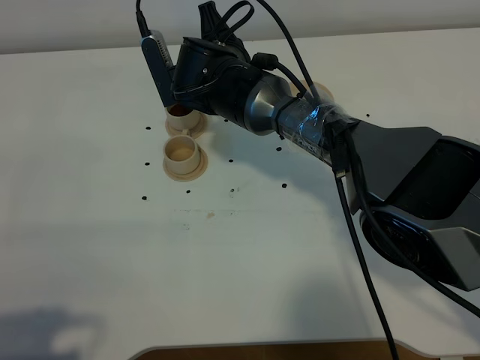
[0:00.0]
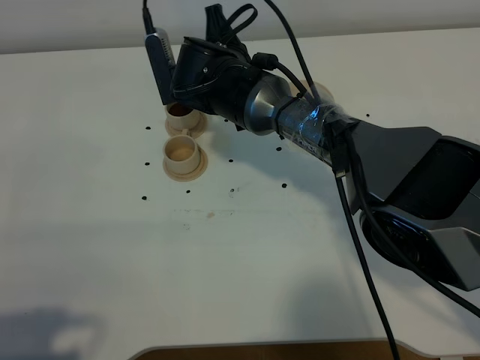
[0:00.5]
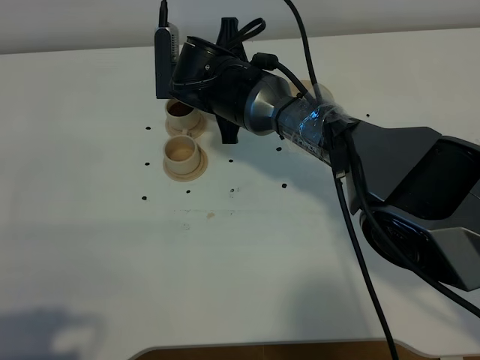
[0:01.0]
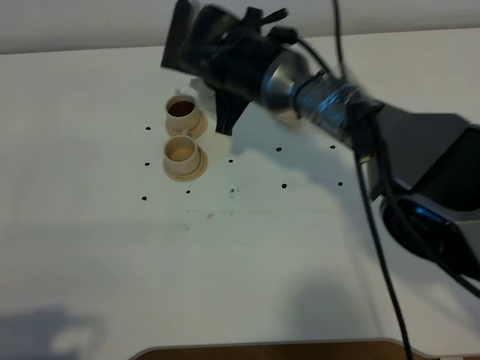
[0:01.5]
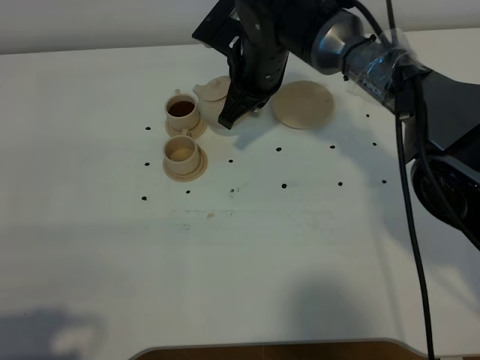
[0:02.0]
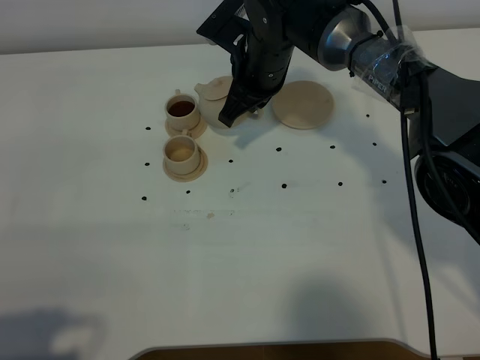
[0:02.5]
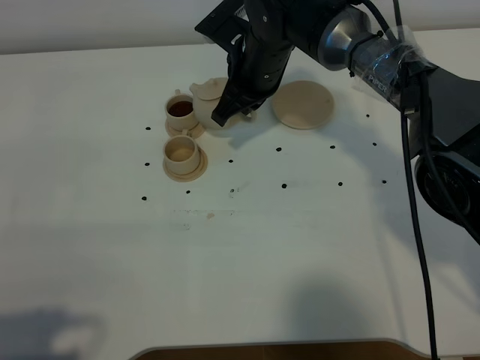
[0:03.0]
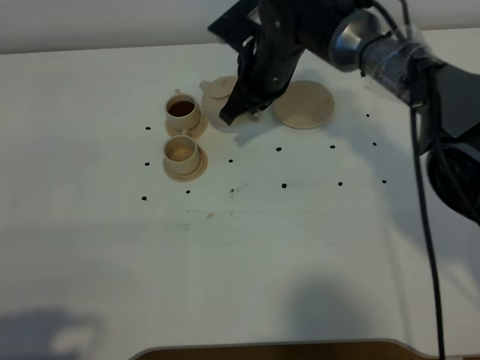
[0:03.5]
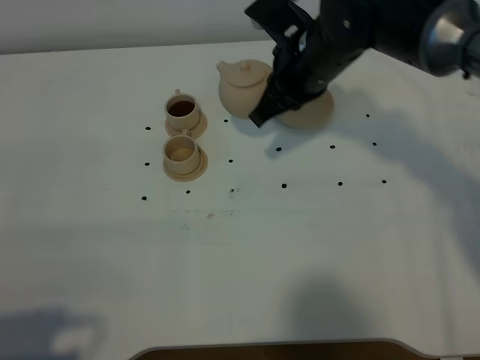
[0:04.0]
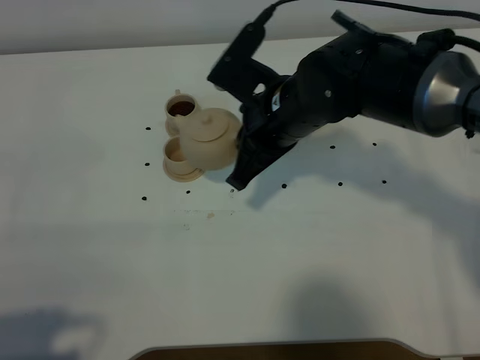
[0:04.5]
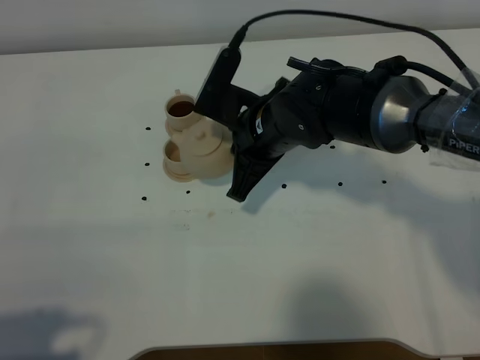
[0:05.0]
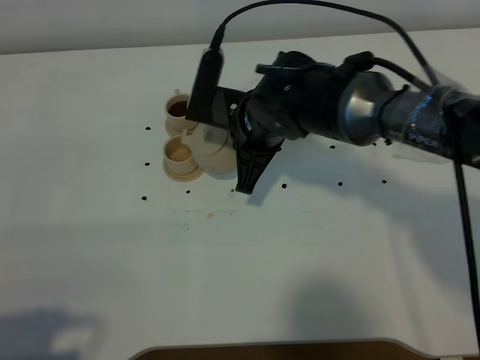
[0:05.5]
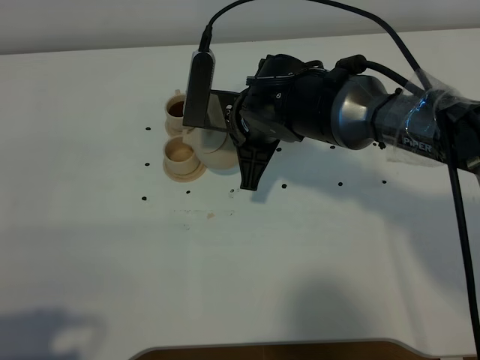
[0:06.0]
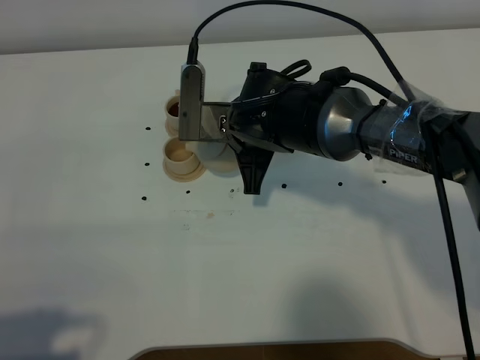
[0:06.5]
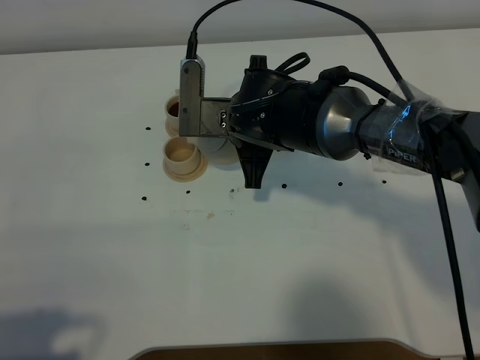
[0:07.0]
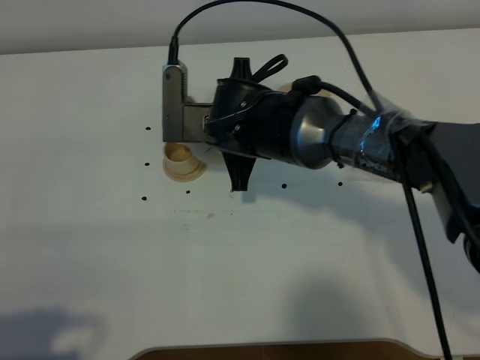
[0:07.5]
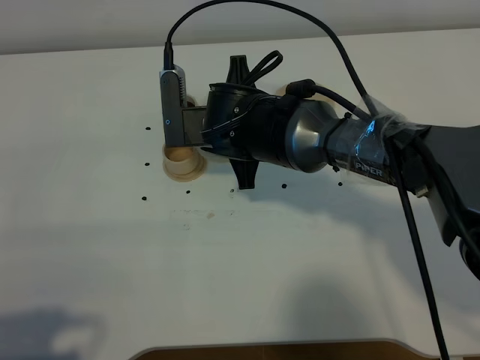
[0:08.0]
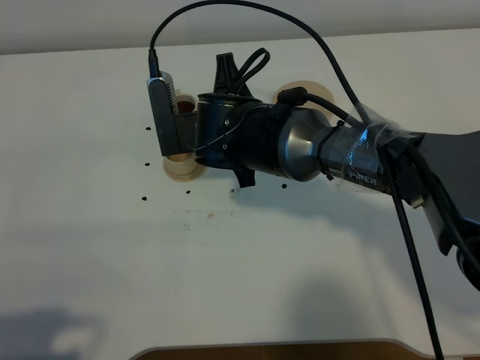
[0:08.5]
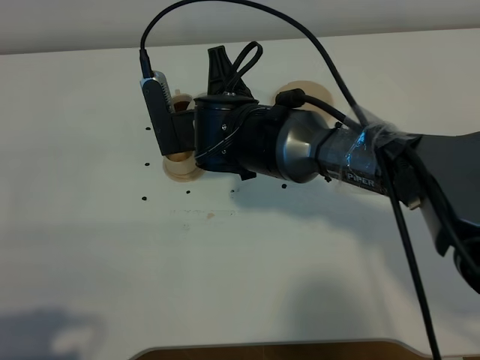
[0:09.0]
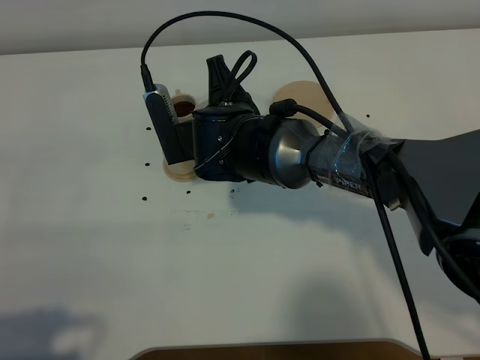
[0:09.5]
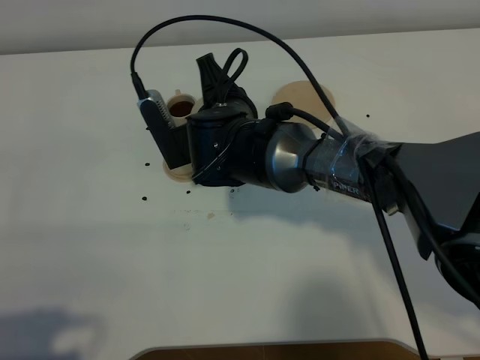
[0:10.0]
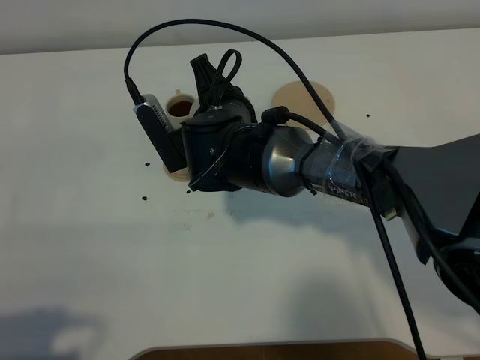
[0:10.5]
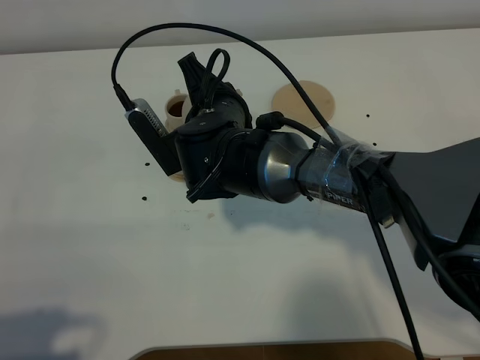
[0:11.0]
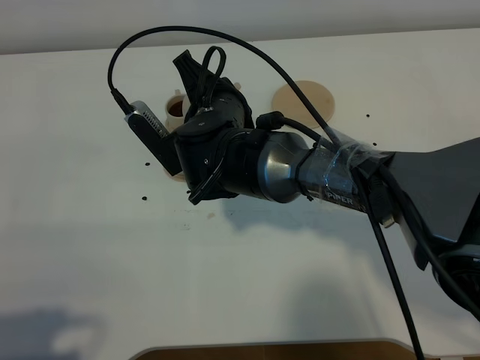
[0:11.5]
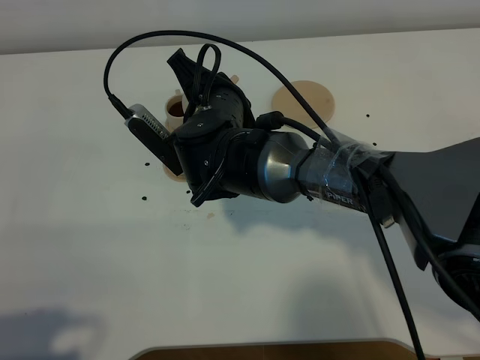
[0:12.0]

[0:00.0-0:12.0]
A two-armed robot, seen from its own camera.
Task of the whole recording: grasp the brown teapot and pour the tea into the two brown teacups one by one, put the brown teapot back in its original place.
0:00.0 to 0:02.0: The right gripper travels to the right by approximately 5 cm.
0:02.0 to 0:04.0: The right gripper is displaced backward and to the right by approximately 10 cm.
0:04.0 to 0:06.0: The right gripper shifts about 10 cm to the left and downward.
0:10.0 to 0:12.0: The grippers make only small movements.

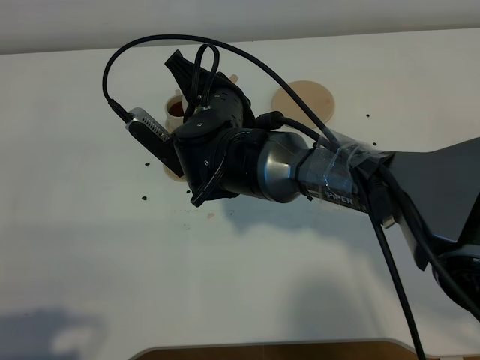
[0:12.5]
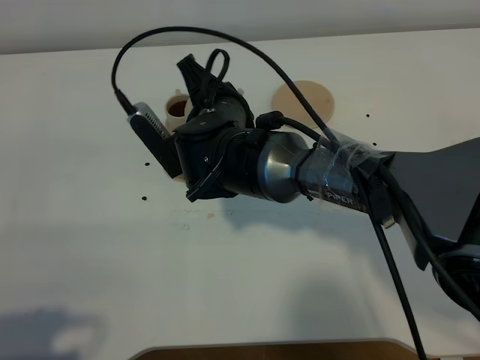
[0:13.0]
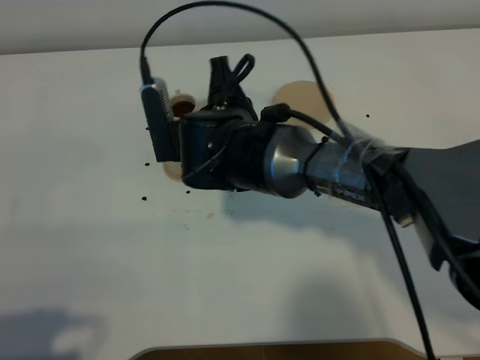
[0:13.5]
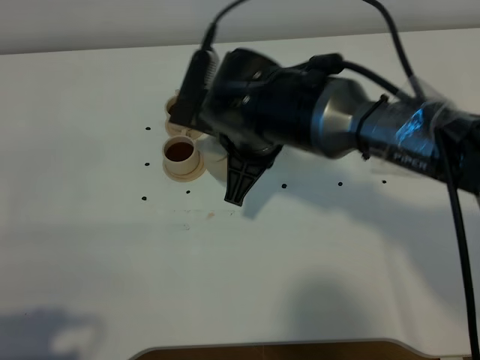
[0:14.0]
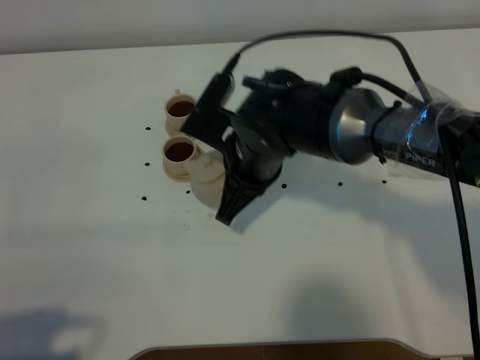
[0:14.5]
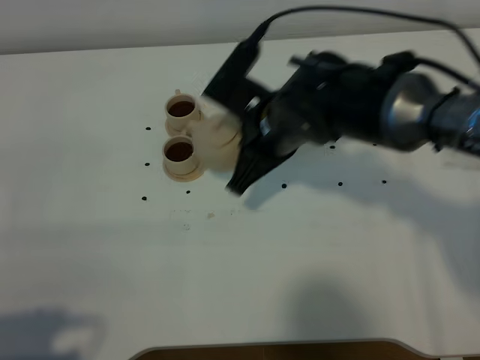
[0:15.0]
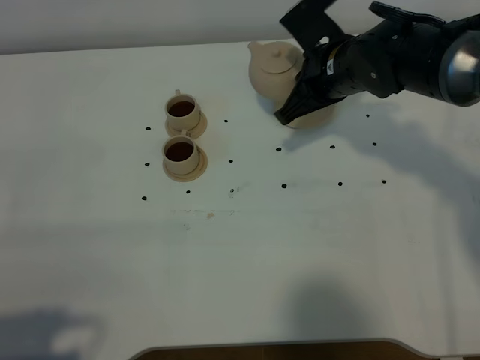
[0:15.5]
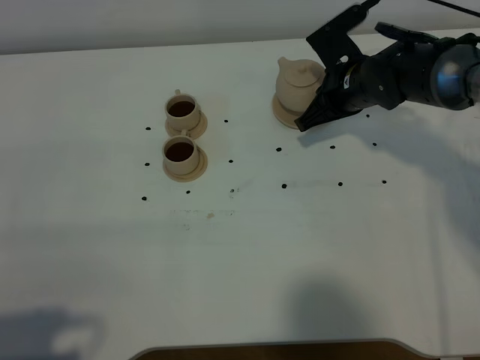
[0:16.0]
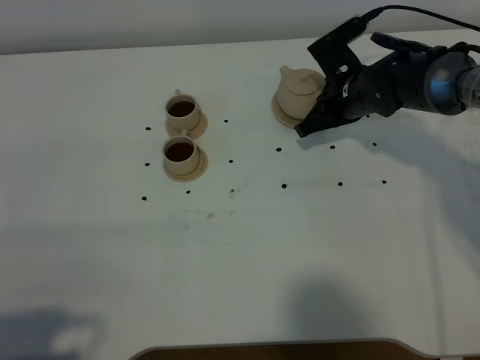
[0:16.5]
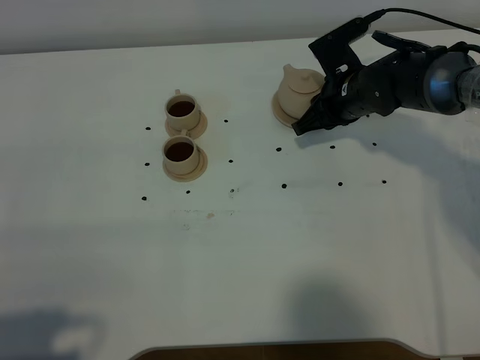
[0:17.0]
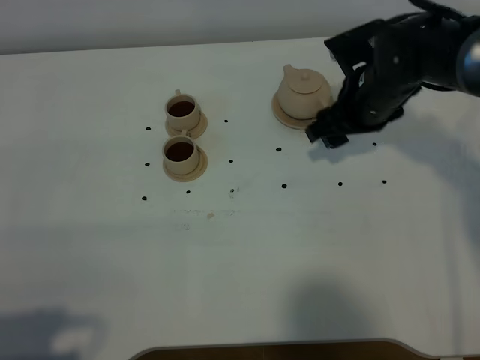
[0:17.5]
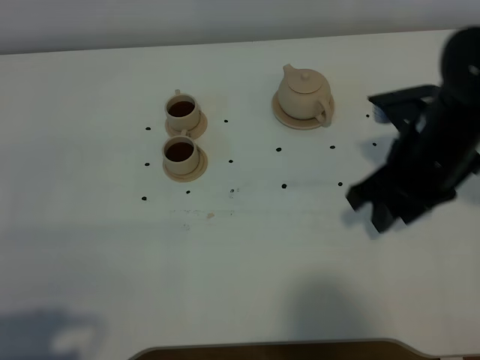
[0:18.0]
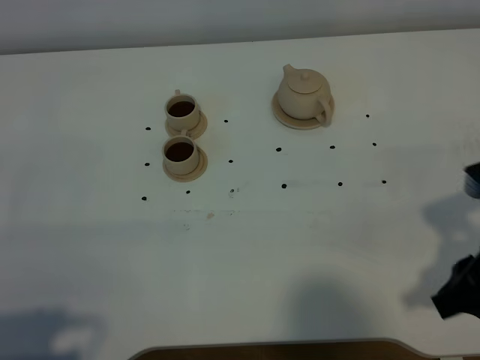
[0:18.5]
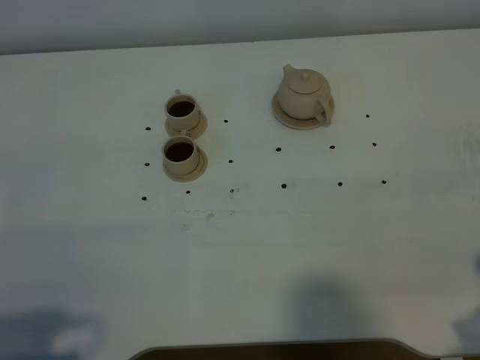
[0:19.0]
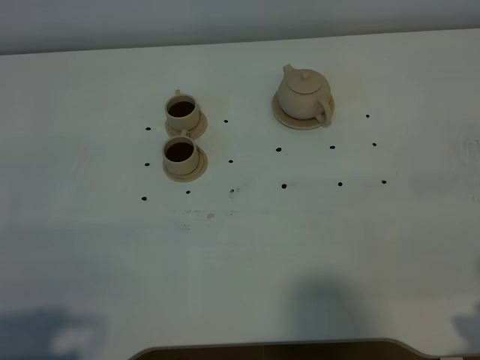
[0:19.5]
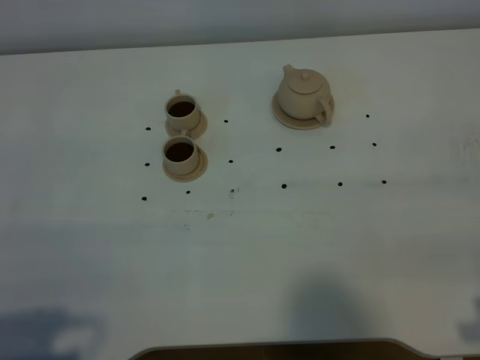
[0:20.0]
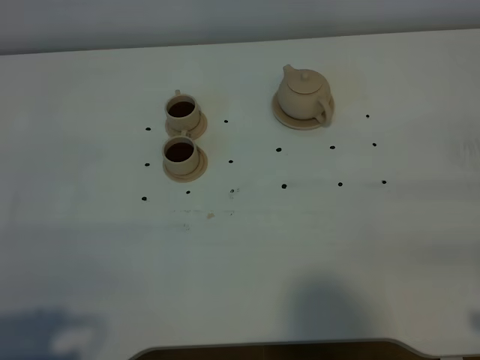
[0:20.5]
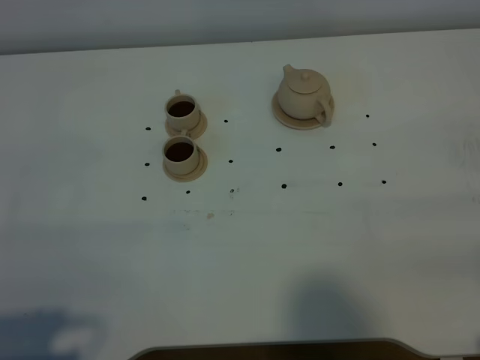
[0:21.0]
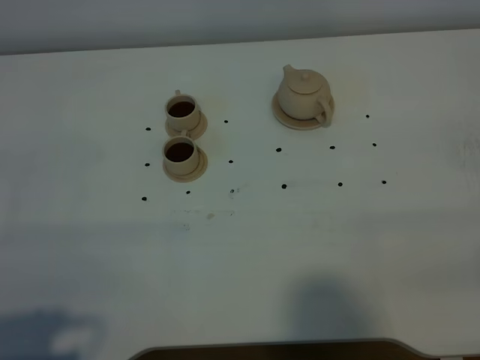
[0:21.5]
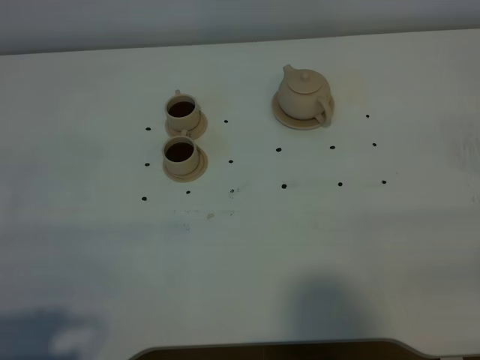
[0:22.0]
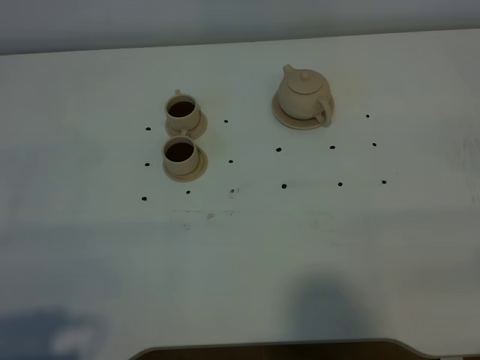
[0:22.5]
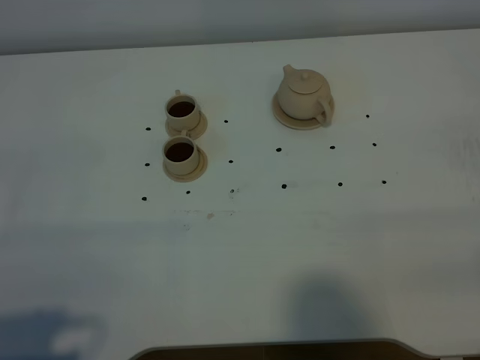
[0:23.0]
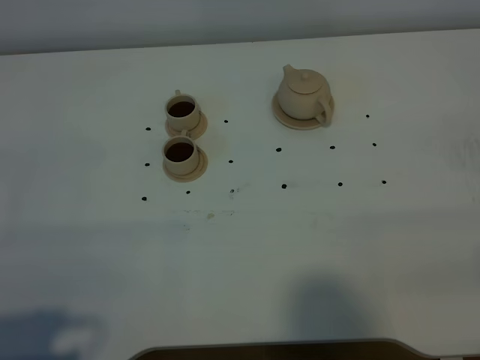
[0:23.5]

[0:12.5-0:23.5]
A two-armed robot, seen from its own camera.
Task of the whole recording: grasp the brown teapot and pour the tea into the two brown teacups one by one, put the brown teapot back in its original place.
0:12.5 to 0:14.5: The right gripper changes place by some 5 cm.
0:14.5 to 0:16.0: The right gripper moves to the right and forward, about 20 cm.
0:16.0 to 0:18.0: The right gripper travels backward and upward by roughly 20 cm, and opens.
0:18.0 to 0:20.0: The right gripper is displaced backward by approximately 20 cm.
0:21.5 to 0:23.5: Both grippers stay about where they are.

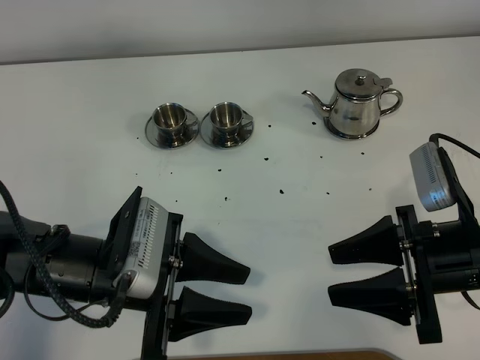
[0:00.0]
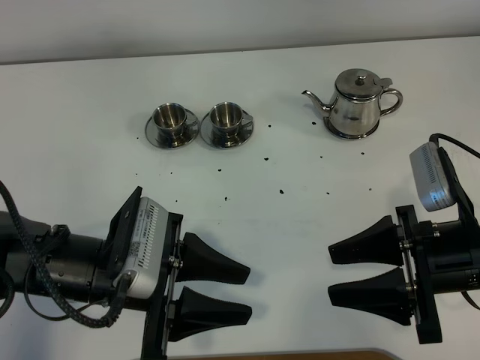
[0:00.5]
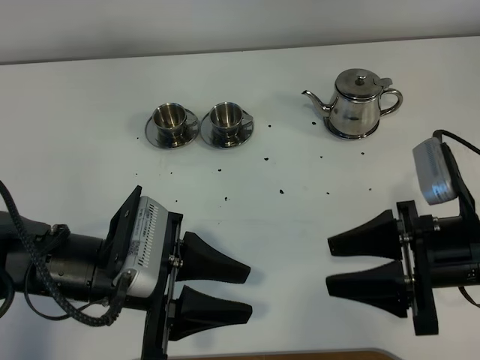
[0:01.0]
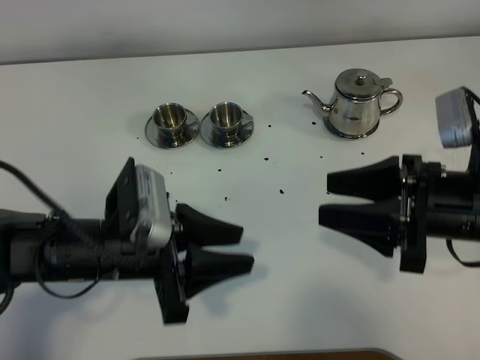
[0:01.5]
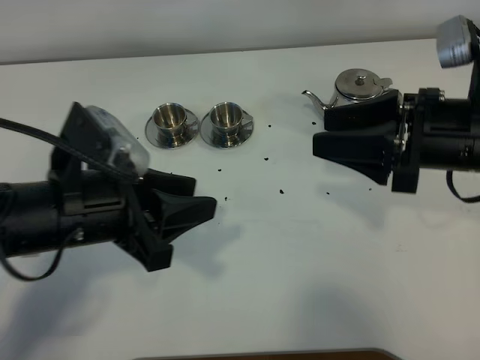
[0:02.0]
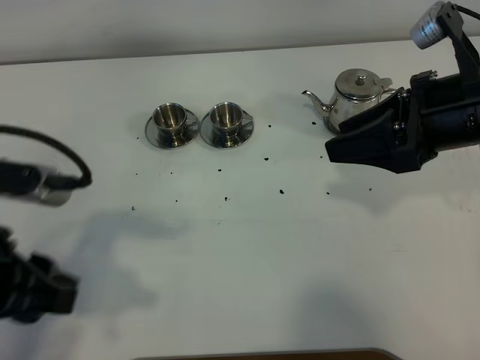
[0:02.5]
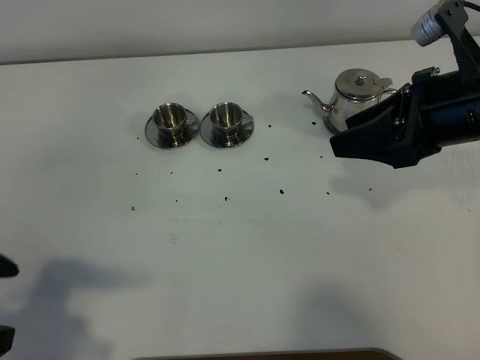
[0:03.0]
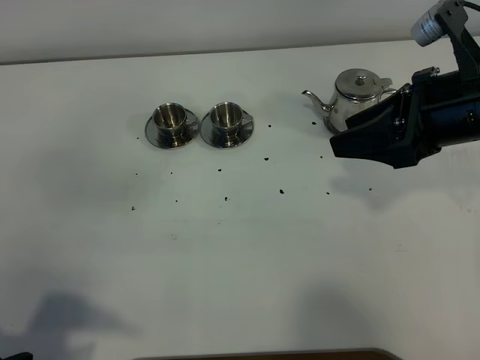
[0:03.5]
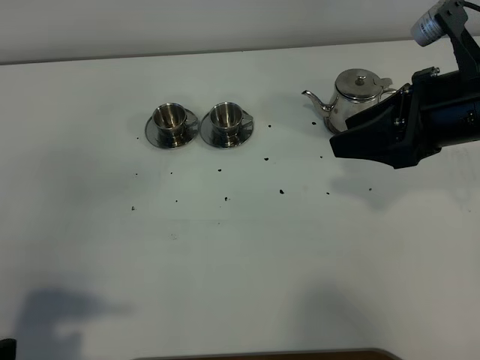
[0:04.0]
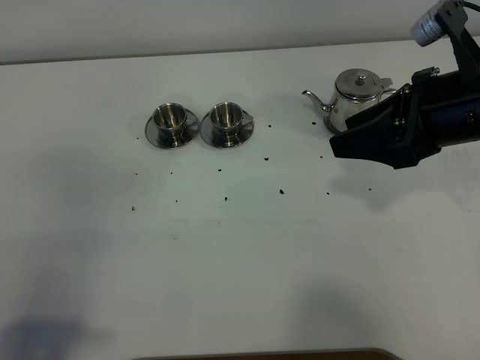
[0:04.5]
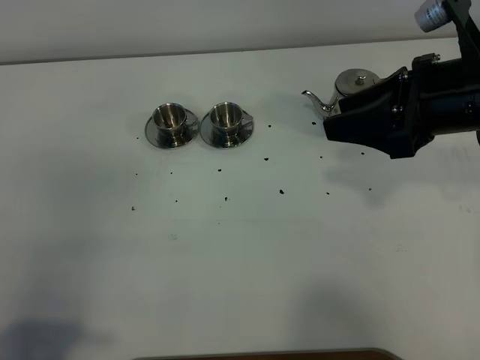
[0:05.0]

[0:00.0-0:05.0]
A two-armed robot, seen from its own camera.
Task of the whole recording: grasp the stainless steel teapot and pour the tea into the two stainless steel teacups one by one, put the stainless steel teapot back in its original place.
0:00.0 to 0:02.5: The left gripper is displaced upward and to the left by approximately 15 cm; the right gripper travels upward and forward by roughly 15 cm.
0:02.5 to 0:05.0: The left gripper travels backward and to the left by approximately 15 cm.
